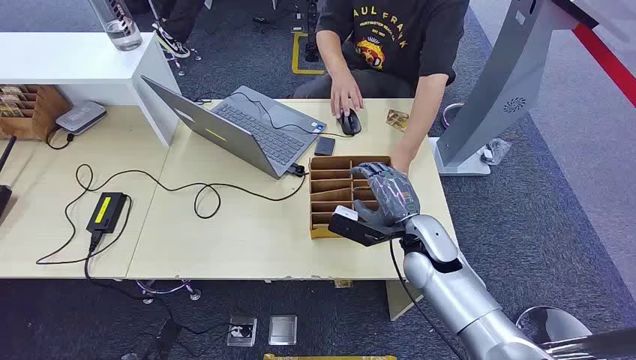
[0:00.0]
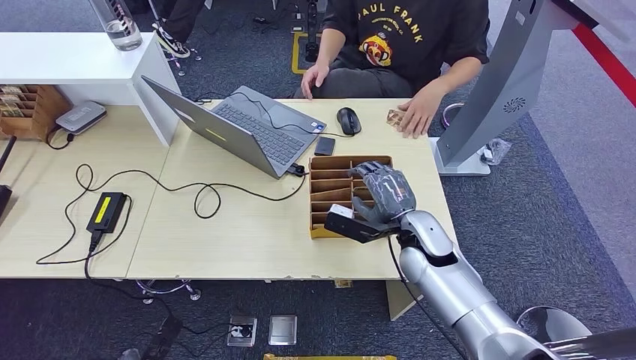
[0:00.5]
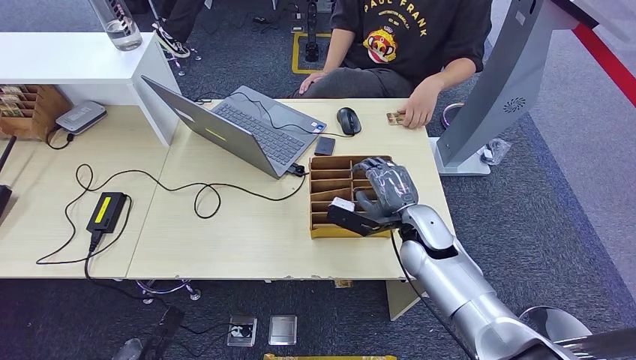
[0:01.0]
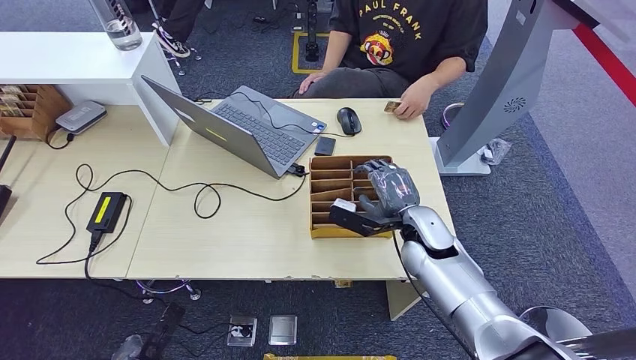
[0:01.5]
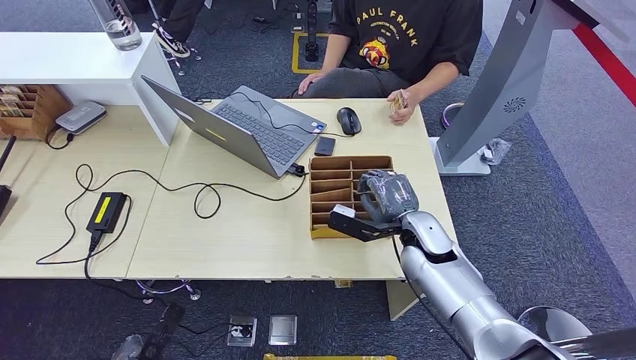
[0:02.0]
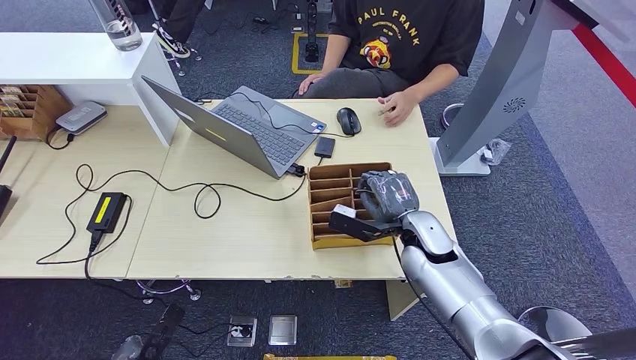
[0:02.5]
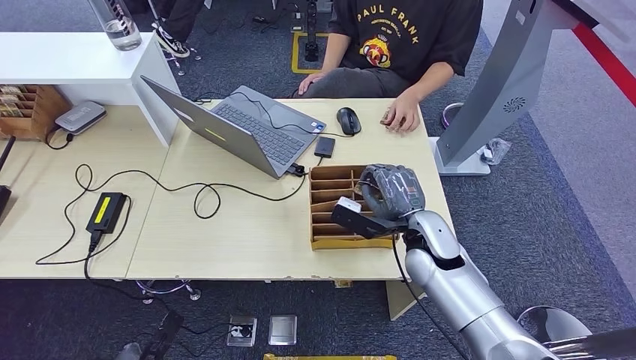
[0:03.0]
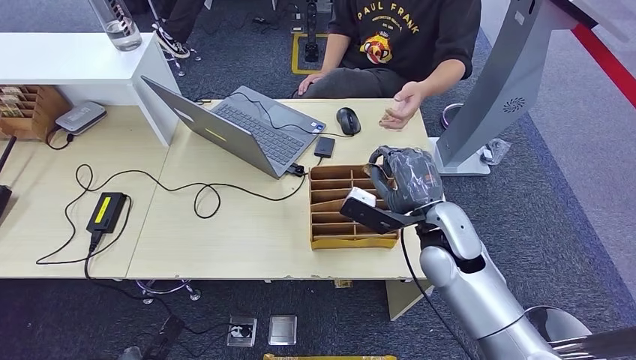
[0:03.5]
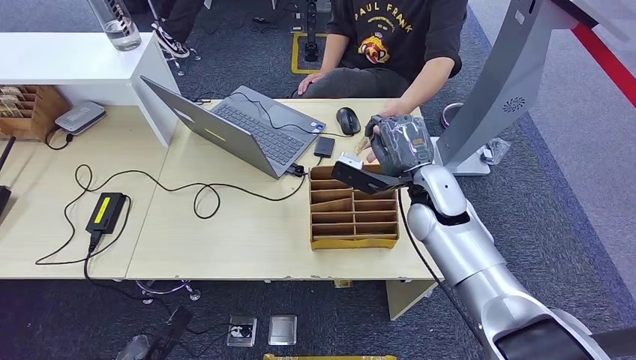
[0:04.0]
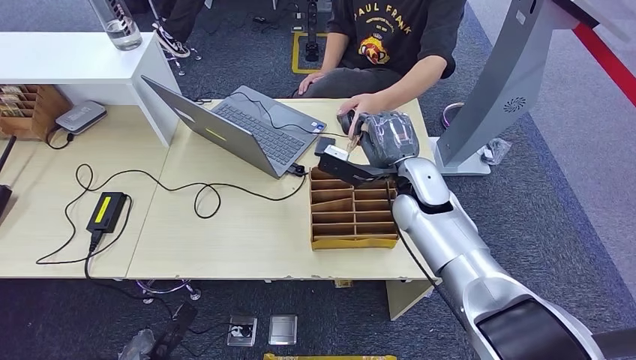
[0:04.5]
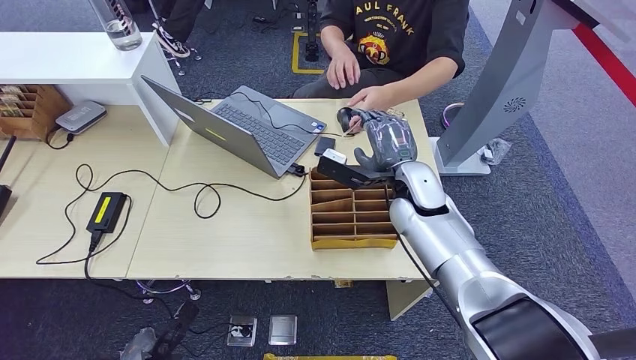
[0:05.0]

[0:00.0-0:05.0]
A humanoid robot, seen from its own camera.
Step, 0:00.0 to 0:02.5: Pick up the room card from the card holder.
Step, 0:03.0 to 0:05.0: Hand the room card to the target.
0:02.5 to 0:05.0: The right hand goes about 10 cm upward and forward.

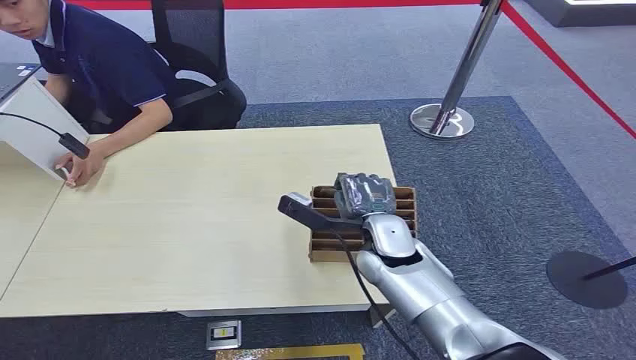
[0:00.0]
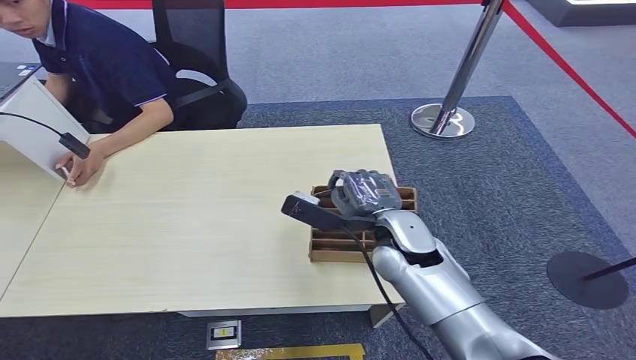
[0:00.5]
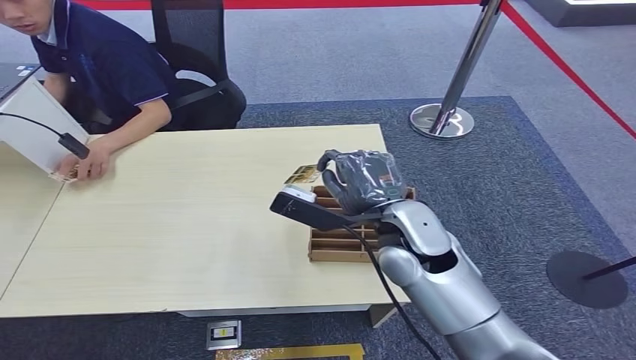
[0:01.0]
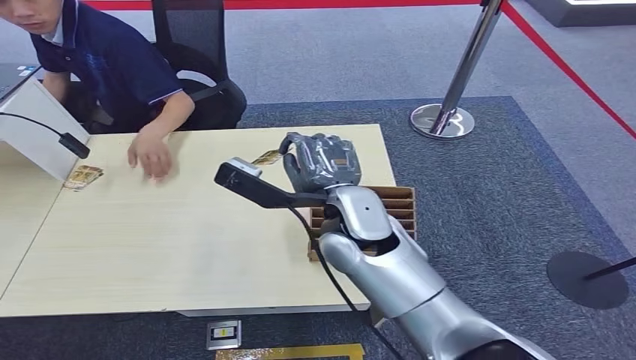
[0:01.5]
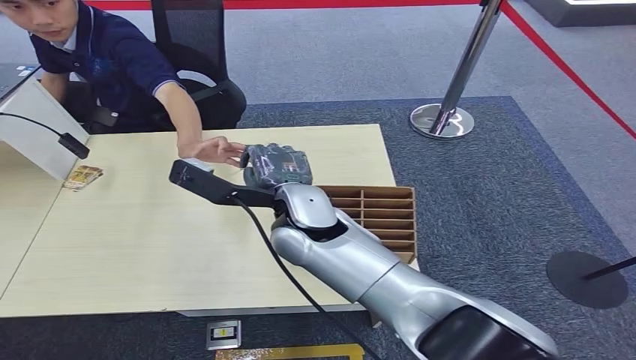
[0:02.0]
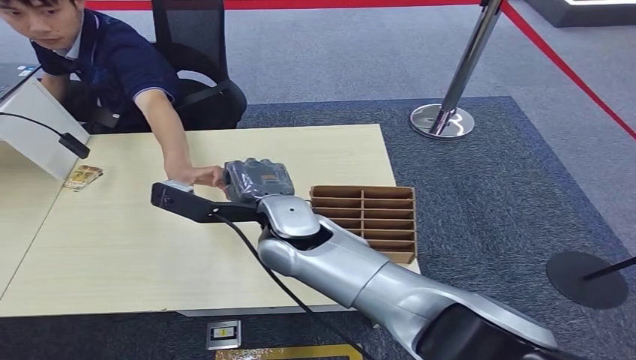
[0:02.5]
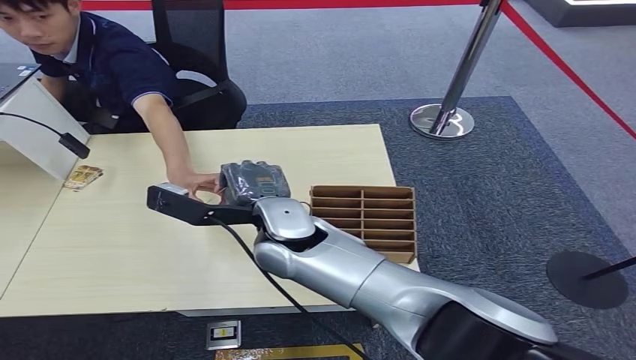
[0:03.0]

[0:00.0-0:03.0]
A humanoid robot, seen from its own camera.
Step, 0:00.0 to 0:01.0: Pick up the room card from the card holder.
Step, 0:01.5 to 0:03.0: Hand the room card to the target.
0:01.5 to 0:03.0: The right hand moves to the left, about 5 cm.

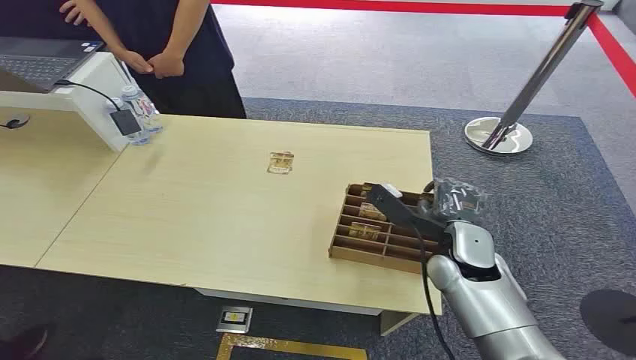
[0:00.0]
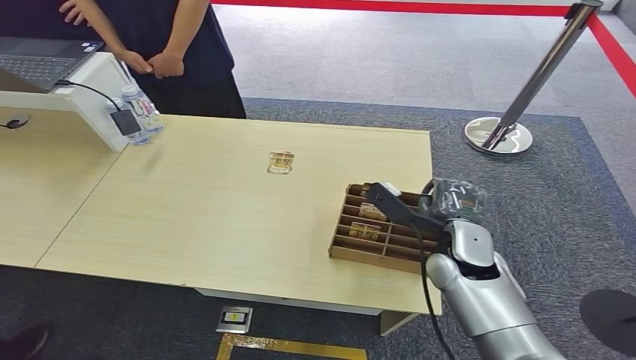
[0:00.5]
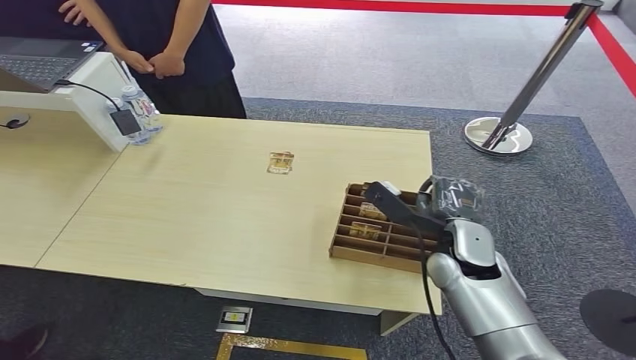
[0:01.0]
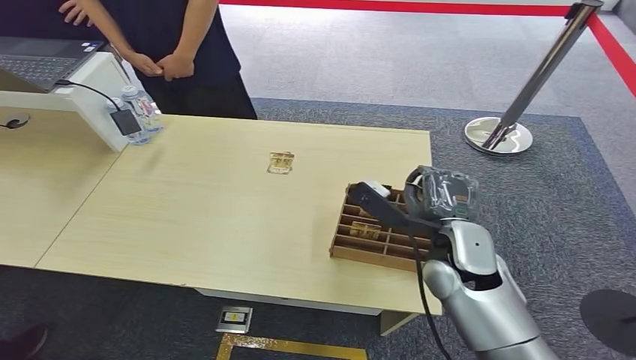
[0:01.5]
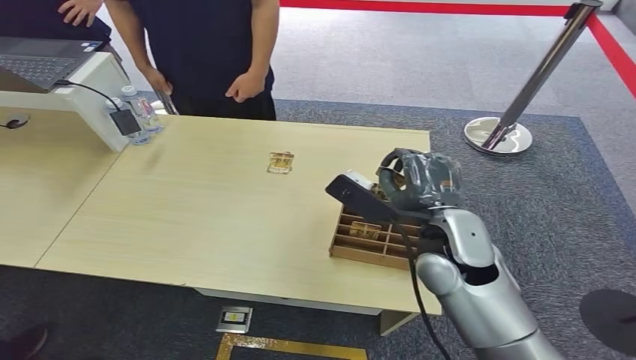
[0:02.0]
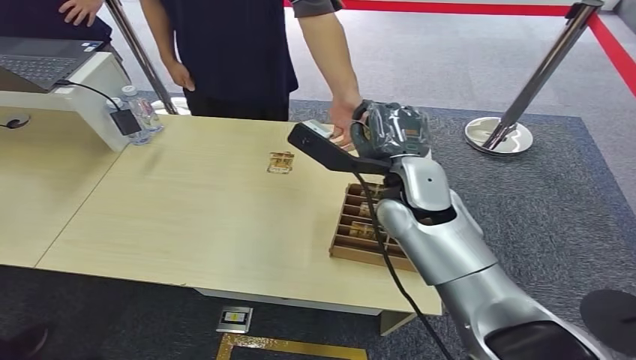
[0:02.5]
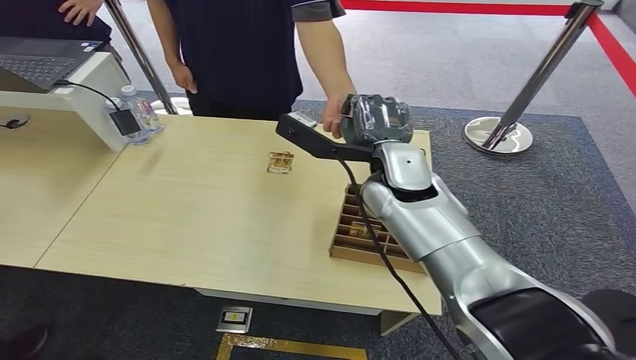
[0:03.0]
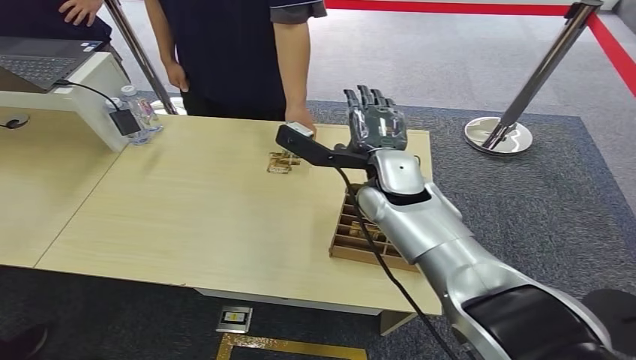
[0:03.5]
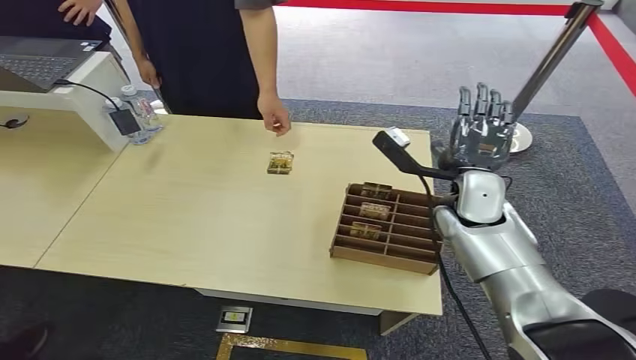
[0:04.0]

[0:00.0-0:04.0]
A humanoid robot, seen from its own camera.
Step, 0:00.0 to 0:02.0: Pick up the room card from the card holder.
Step, 0:02.5 to 0:03.5: Hand the room card to the target.
0:02.0 to 0:04.0: The right hand travels forward by about 10 cm.

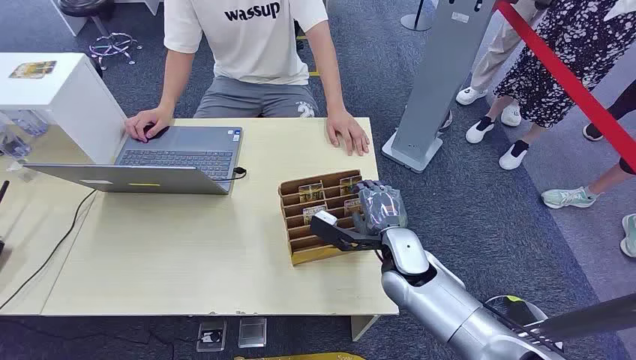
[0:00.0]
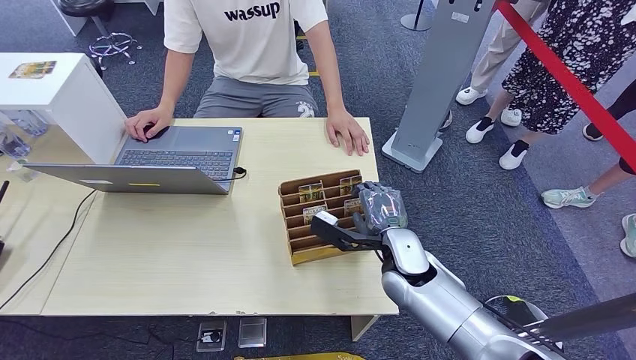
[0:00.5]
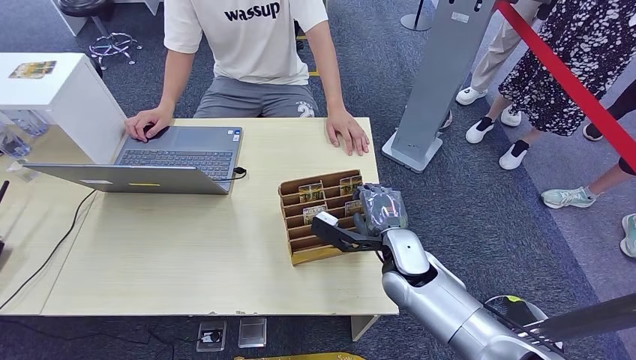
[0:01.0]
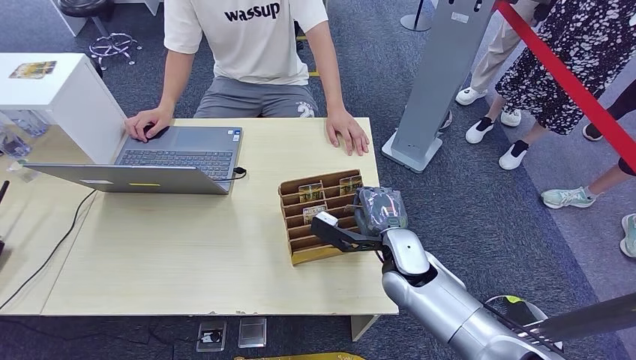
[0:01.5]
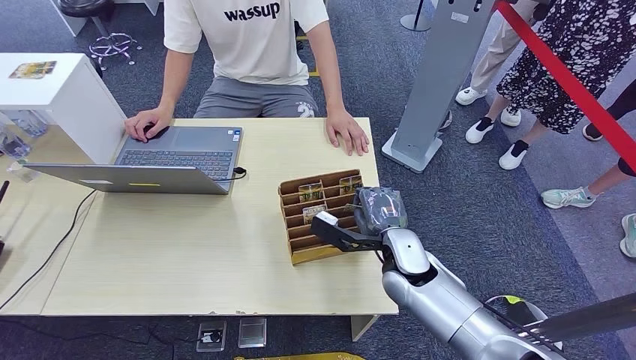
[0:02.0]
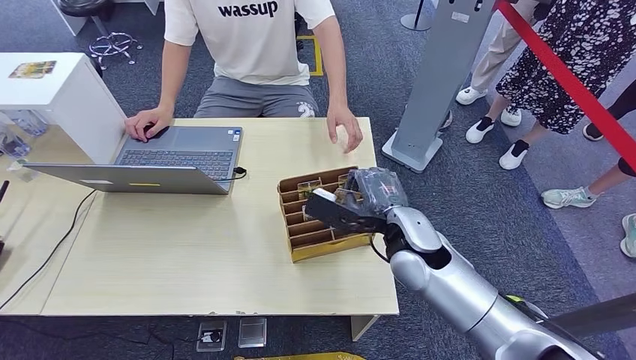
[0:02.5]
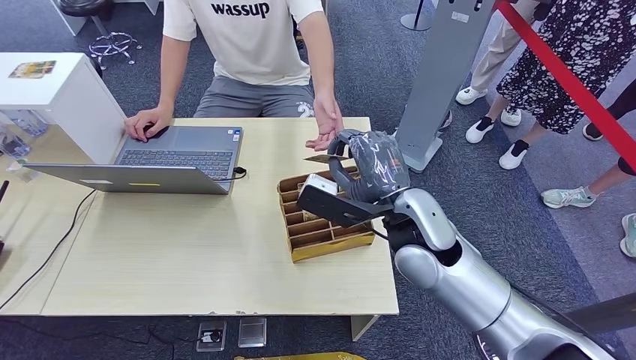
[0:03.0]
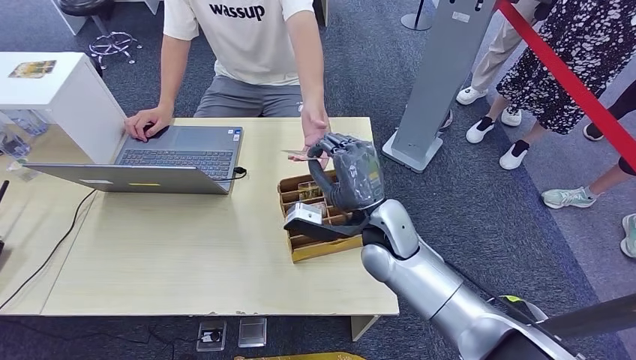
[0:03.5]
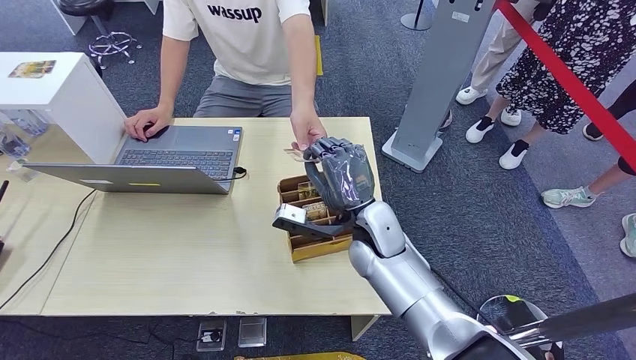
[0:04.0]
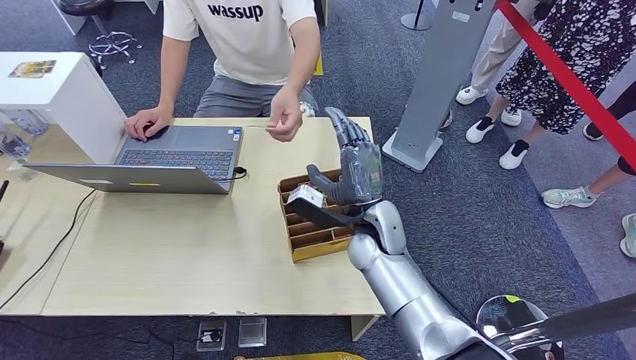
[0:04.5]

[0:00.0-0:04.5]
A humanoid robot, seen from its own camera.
Step, 0:00.0 to 0:02.5: Pick up the room card from the card holder.
Step, 0:03.0 to 0:04.0: Hand the room card to the target.
0:02.0 to 0:04.5: The right hand moves to the left, about 5 cm, and moves about 15 cm upward and comes back.

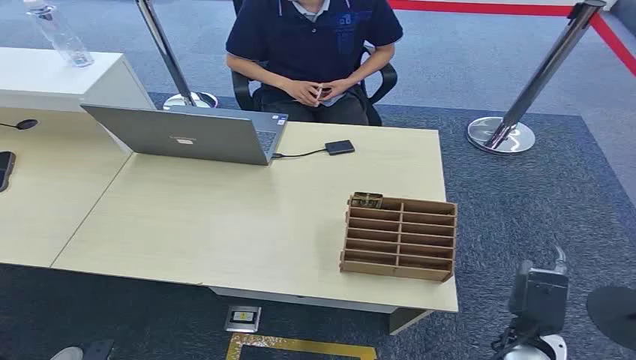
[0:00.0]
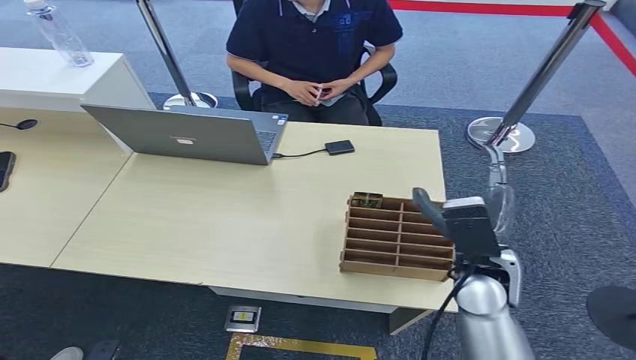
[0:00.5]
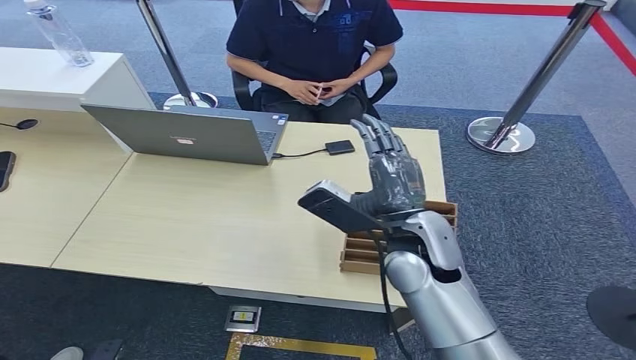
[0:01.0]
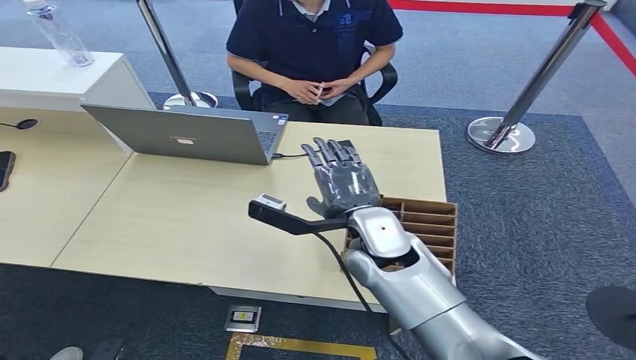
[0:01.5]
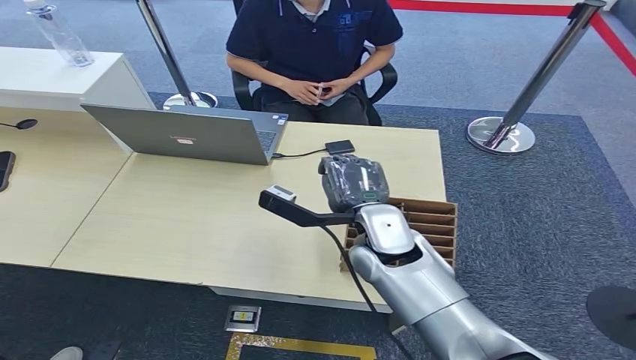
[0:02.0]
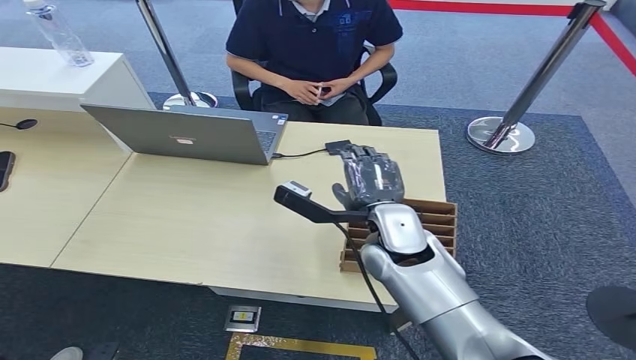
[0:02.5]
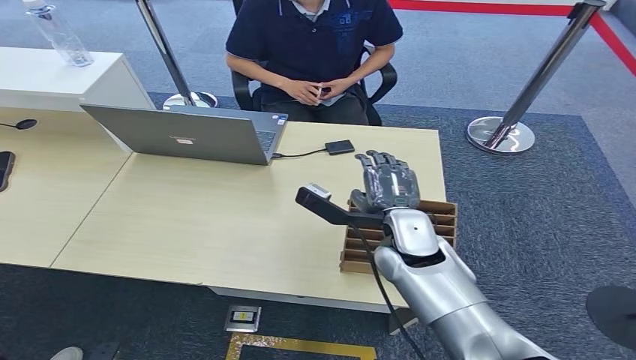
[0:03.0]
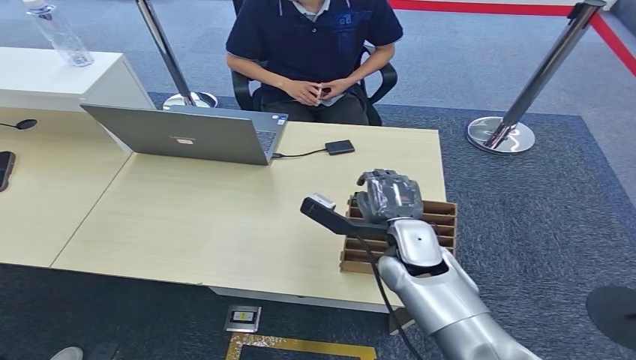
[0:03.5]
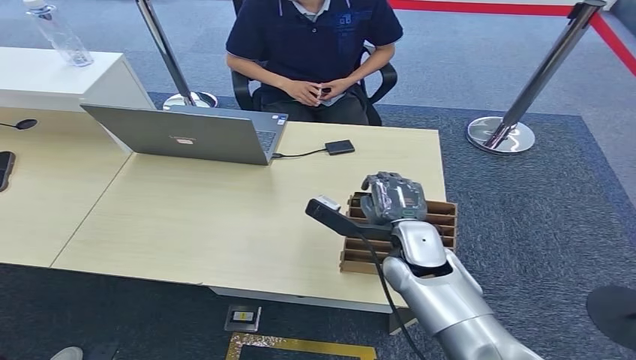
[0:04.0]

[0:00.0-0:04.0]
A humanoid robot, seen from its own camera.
0:02.0 to 0:04.0: The right hand travels to the right by approximately 5 cm.
